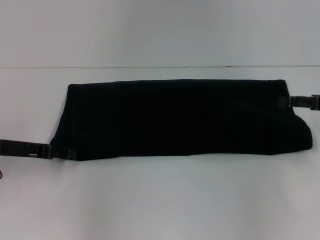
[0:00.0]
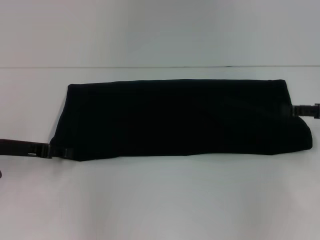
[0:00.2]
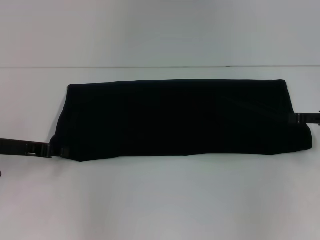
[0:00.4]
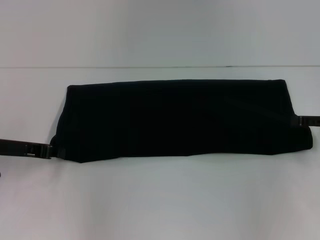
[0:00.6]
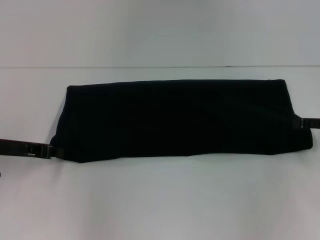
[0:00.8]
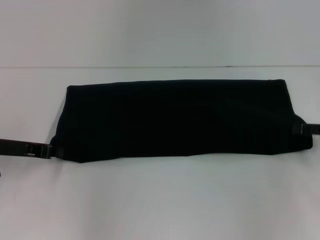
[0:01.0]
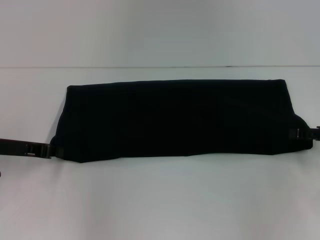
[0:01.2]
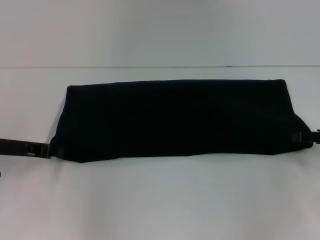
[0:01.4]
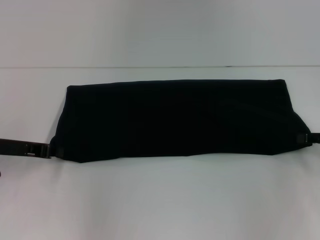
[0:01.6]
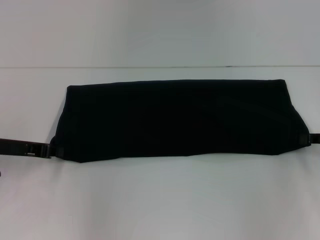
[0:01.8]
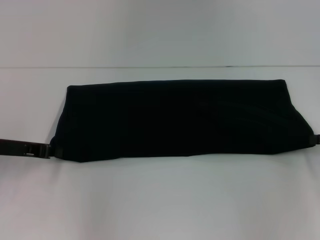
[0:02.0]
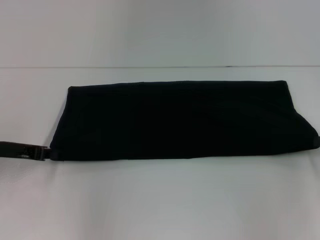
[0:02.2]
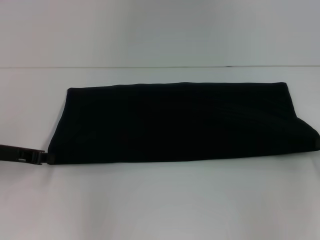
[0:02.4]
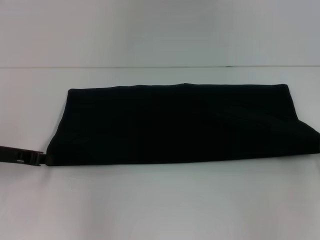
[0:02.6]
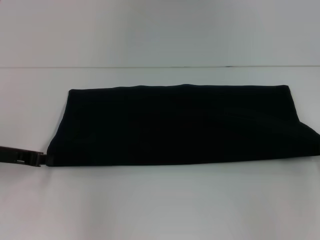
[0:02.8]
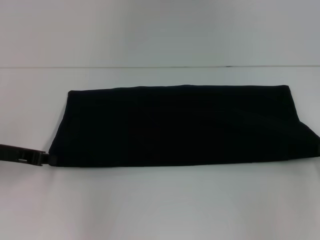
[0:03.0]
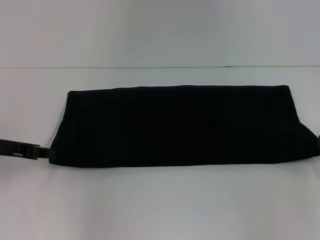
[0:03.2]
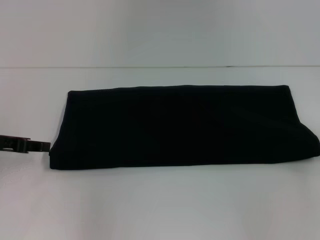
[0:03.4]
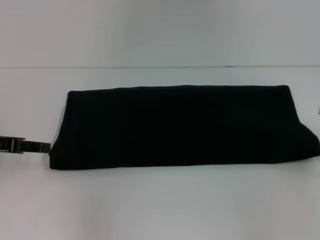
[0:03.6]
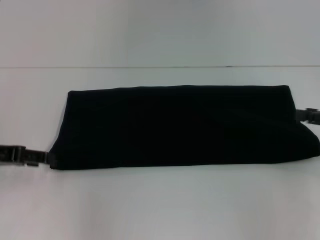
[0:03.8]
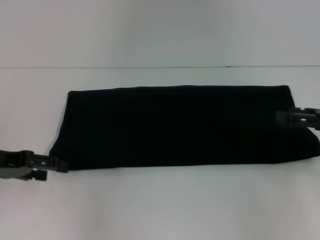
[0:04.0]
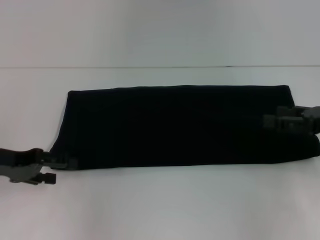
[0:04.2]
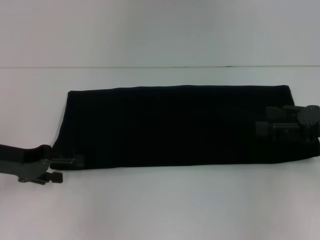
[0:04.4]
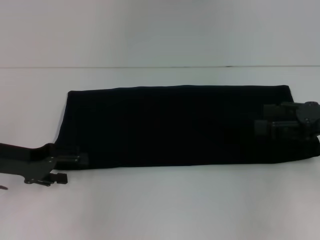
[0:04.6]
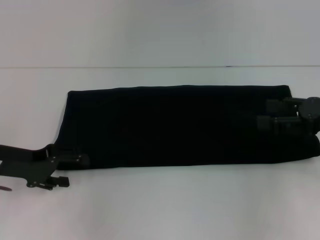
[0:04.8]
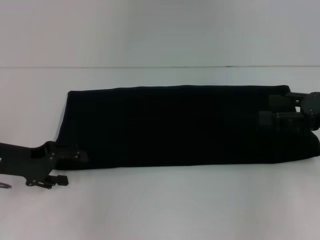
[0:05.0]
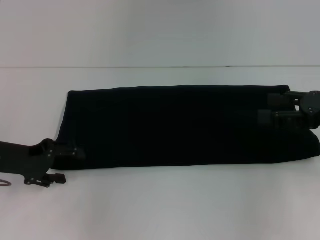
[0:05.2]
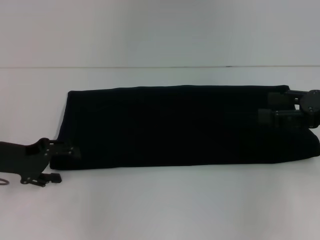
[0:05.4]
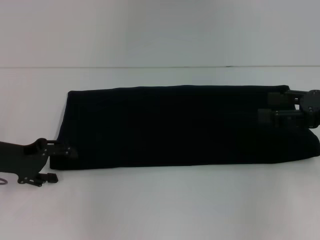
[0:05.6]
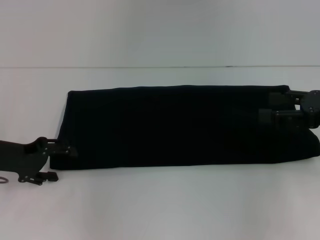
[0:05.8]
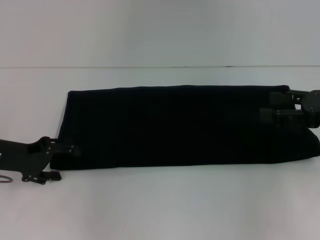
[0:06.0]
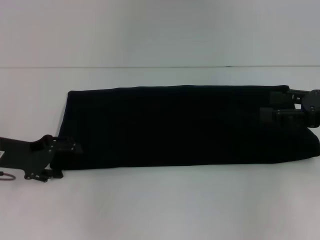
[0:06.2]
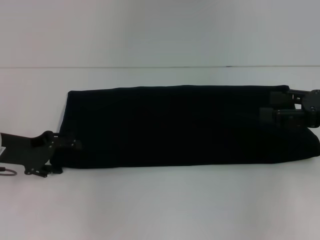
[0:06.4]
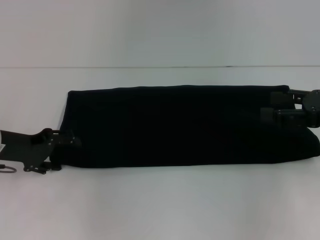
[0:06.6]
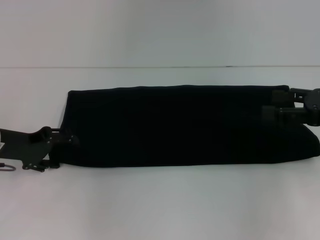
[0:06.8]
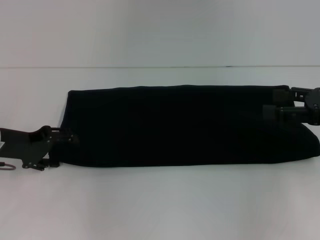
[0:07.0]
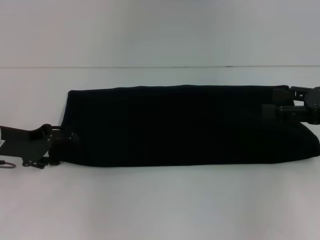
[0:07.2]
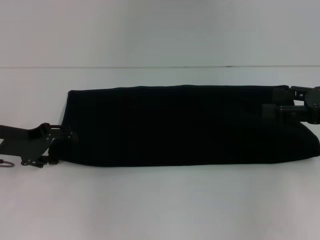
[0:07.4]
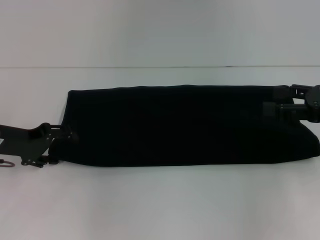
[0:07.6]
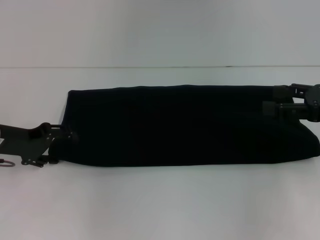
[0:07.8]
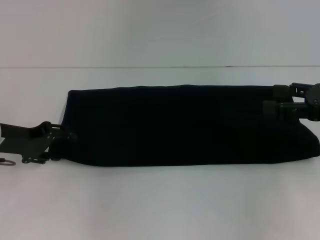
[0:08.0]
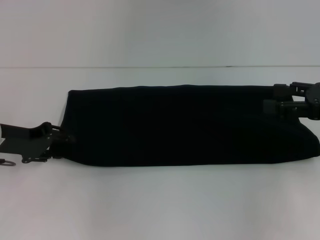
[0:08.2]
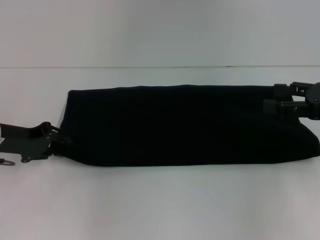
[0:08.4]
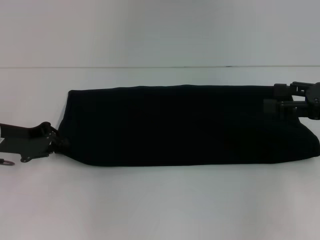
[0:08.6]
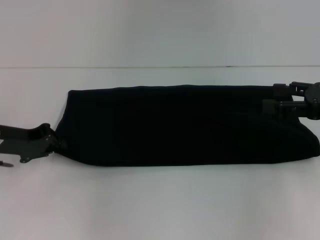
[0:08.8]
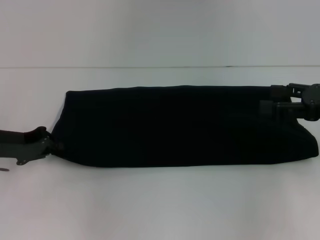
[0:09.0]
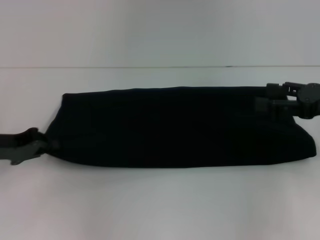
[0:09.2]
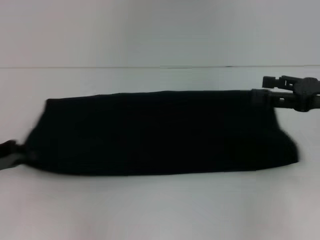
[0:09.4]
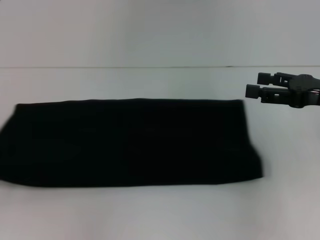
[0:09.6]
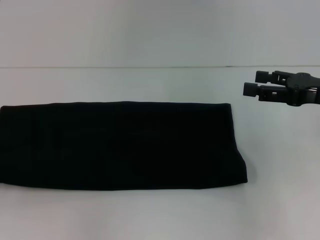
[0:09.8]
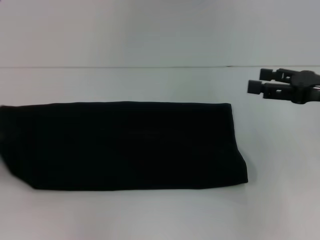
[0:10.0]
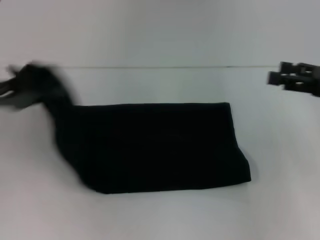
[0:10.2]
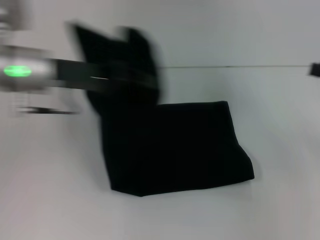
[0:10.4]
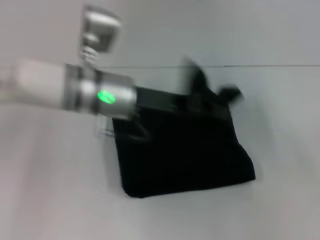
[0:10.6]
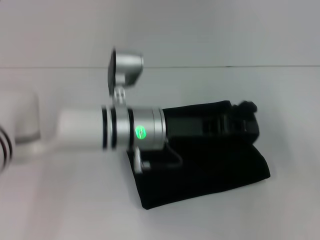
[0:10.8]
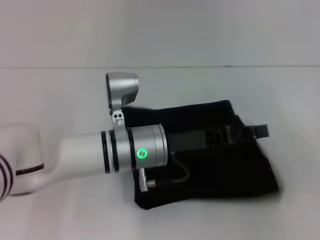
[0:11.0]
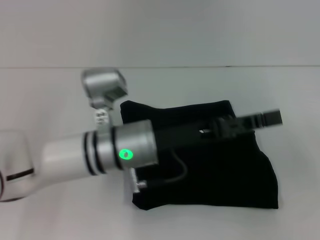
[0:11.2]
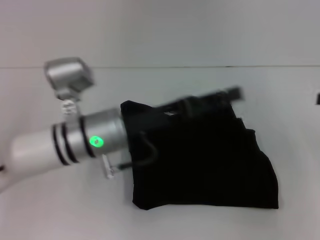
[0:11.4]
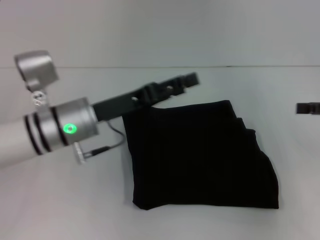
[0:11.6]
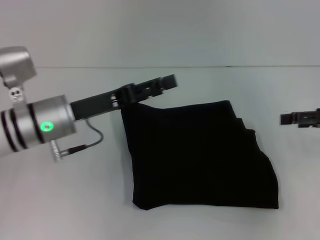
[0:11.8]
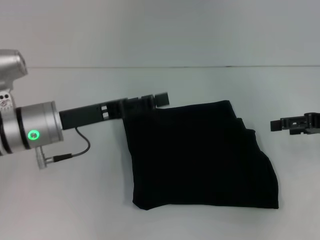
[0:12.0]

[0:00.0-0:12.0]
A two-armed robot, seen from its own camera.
Step, 0:00.0 to 0:11.0: Fold the clothes with your left hand.
0:00.0 to 0:01.6: The right gripper ends up some 5 cm from where it was, and closes up, while the left gripper closes up.
0:01.6 to 0:03.0: The right gripper closes its fingers.
0:03.0 to 0:04.4: The right gripper moves to the left, roughly 5 cm, and opens its fingers, while the left gripper opens up.
0:04.4 to 0:07.6: There are only small adjustments of the grippers.
0:07.6 to 0:09.0: The left gripper closes.
0:09.0 to 0:10.4: The left gripper heads to the right and upward, covering approximately 15 cm, while the right gripper moves to the right, about 5 cm.
0:10.4 to 0:12.0: The right gripper ends up approximately 5 cm from where it was, while the left gripper heads downward, covering roughly 10 cm, moves roughly 15 cm to the right and comes back, and opens.

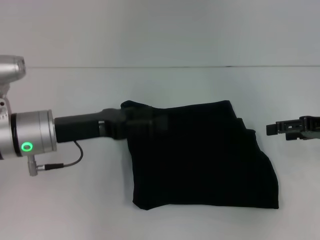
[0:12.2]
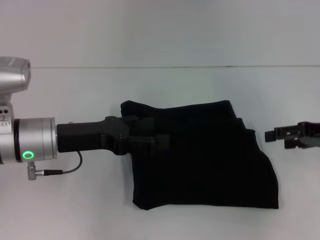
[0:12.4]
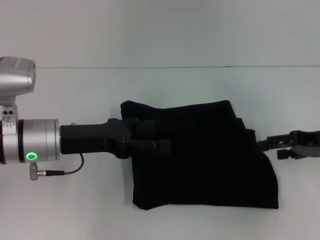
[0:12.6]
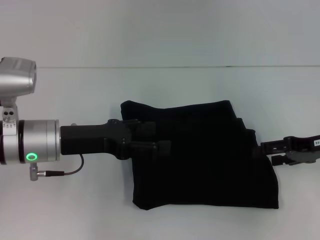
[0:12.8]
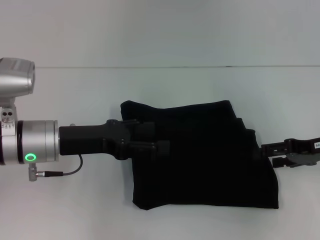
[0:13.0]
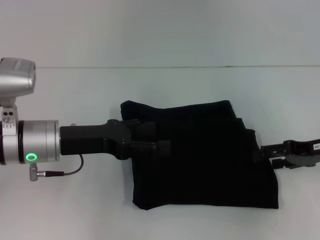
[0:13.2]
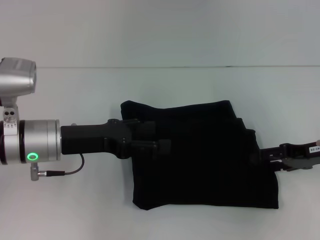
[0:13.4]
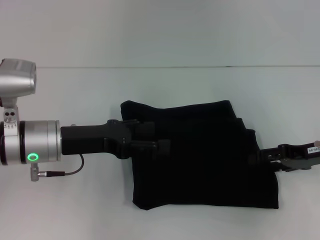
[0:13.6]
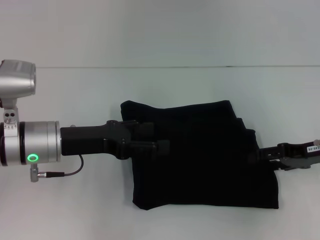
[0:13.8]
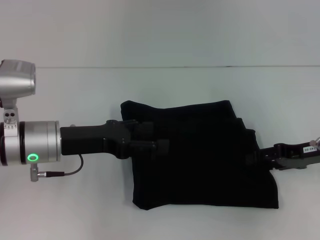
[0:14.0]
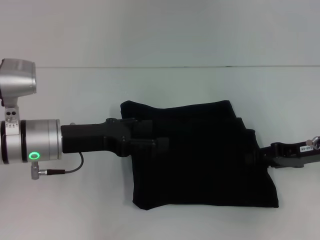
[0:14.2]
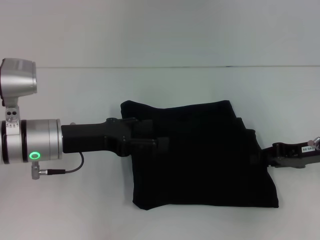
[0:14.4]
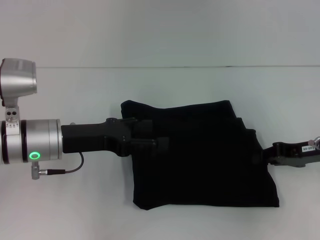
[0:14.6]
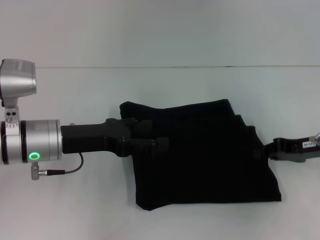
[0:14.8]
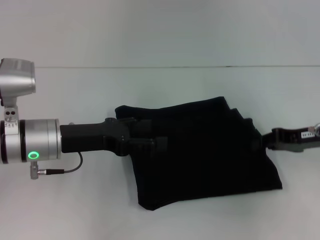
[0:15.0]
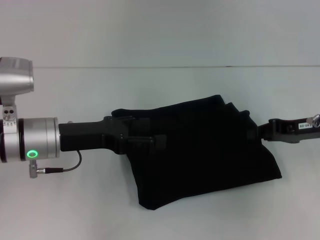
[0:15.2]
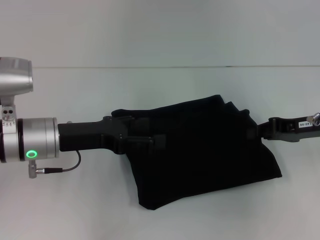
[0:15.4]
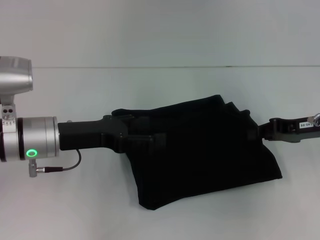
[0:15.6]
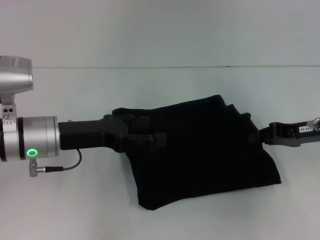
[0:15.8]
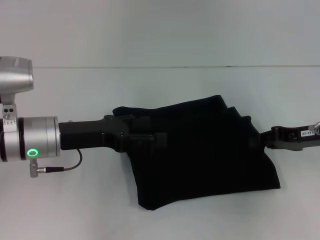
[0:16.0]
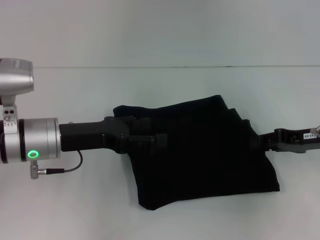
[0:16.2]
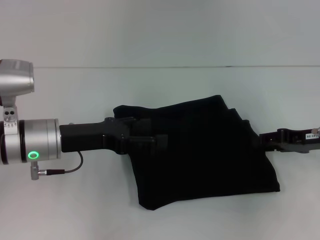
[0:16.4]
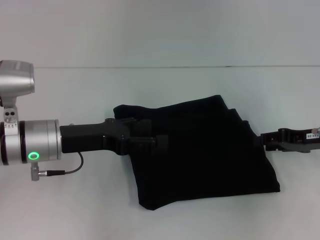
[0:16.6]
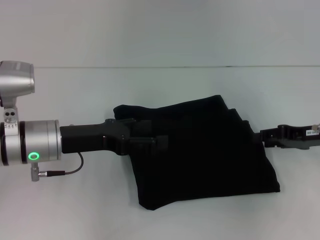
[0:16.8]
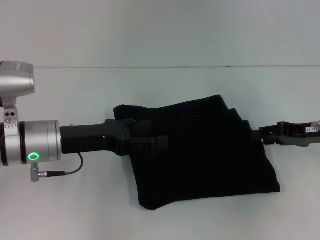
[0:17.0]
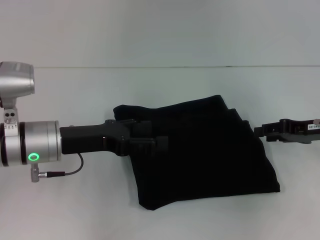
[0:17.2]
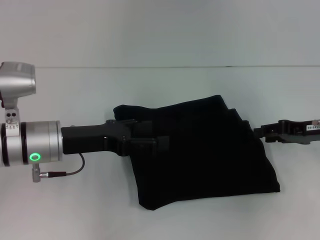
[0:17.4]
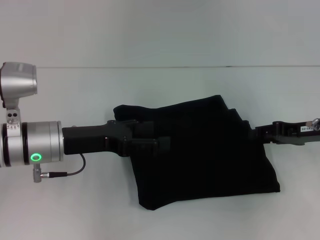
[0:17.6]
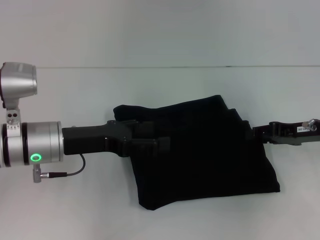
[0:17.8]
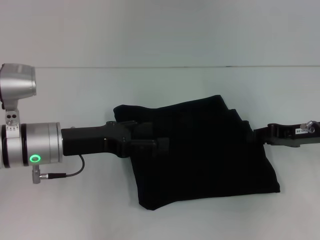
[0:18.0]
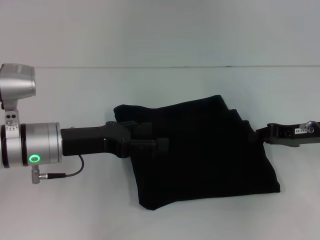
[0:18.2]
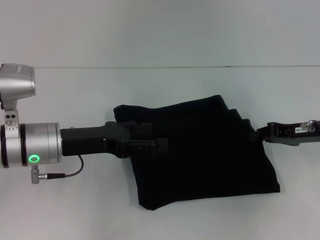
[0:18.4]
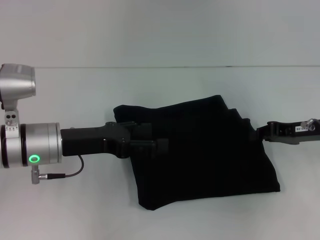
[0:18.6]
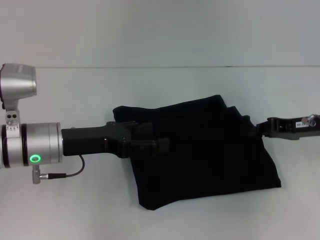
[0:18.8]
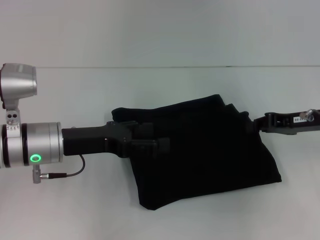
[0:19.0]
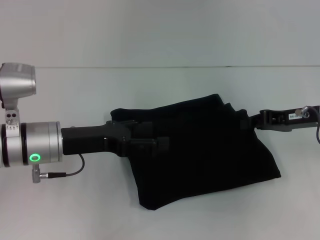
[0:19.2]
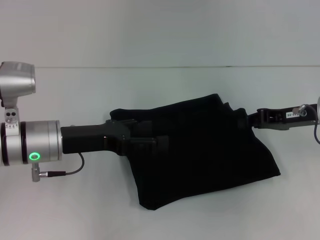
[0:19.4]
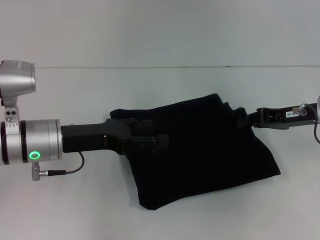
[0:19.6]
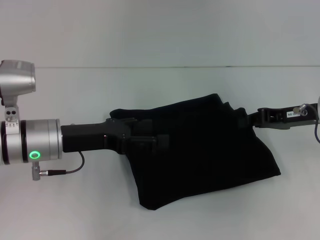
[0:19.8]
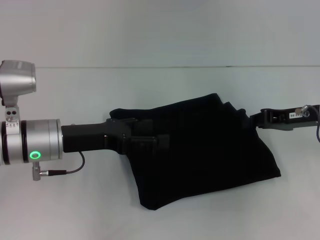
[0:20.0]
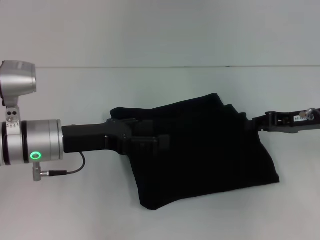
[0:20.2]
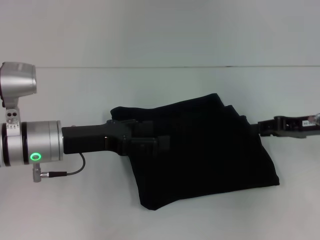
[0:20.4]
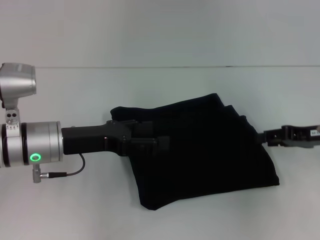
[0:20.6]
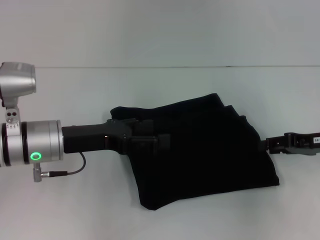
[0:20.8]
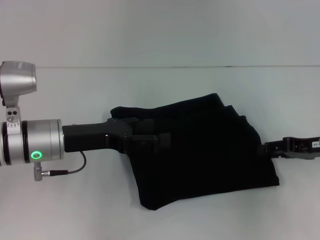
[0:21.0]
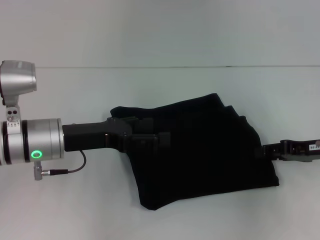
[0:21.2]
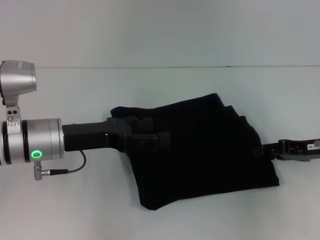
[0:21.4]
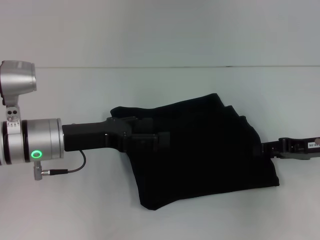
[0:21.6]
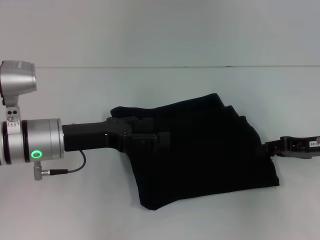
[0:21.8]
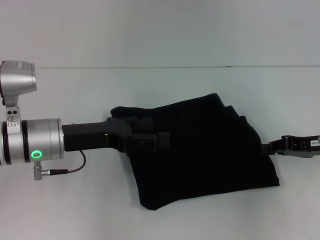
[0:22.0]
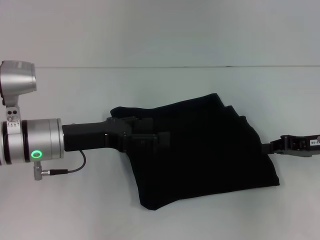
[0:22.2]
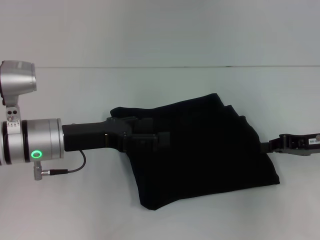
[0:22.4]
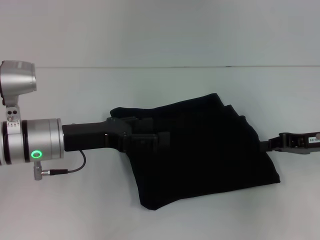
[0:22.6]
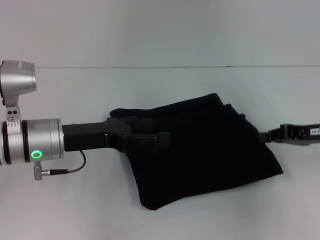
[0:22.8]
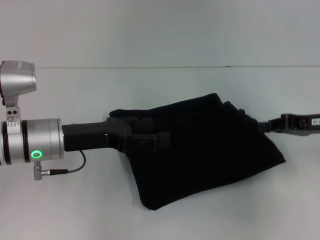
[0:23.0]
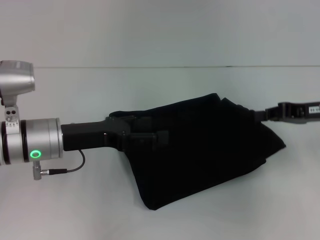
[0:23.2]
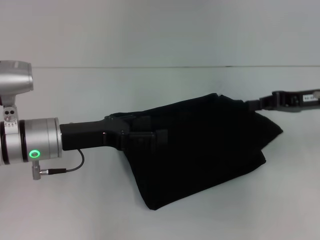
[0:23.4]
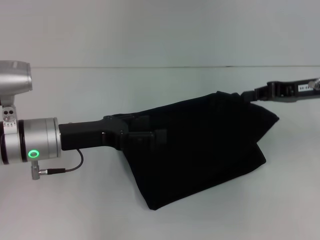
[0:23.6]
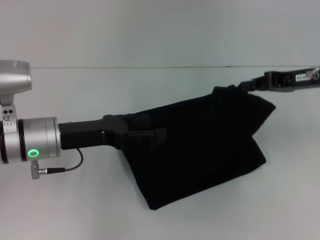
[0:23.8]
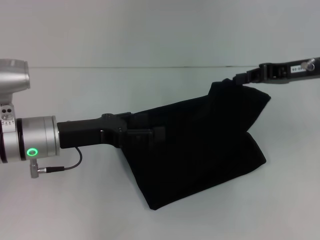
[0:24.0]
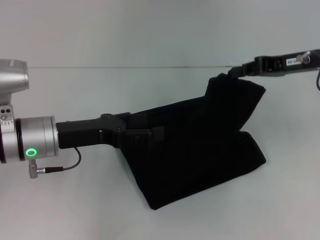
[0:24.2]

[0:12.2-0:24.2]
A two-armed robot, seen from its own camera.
0:12.2 to 0:13.8: The grippers stay close to where they were, moving slightly.
0:13.8 to 0:15.2: The right gripper closes its fingers.
0:15.2 to 0:16.6: The right gripper opens its fingers.
0:16.6 to 0:19.8: The grippers make only small movements.
0:19.8 to 0:21.2: The right gripper moves about 5 cm, and opens.
0:21.2 to 0:22.6: The right gripper closes up.
0:22.6 to 0:24.2: The right gripper heads upward and forward, covering approximately 10 cm.
